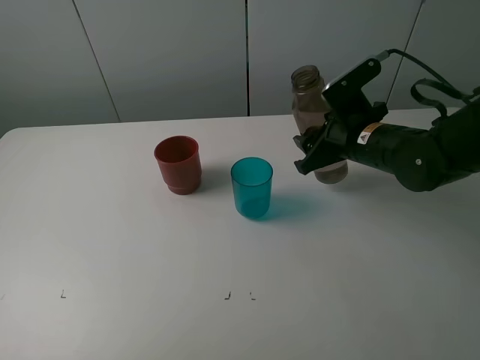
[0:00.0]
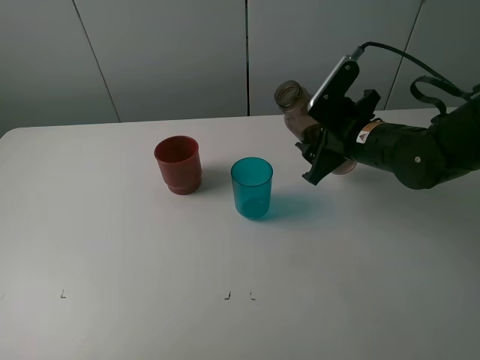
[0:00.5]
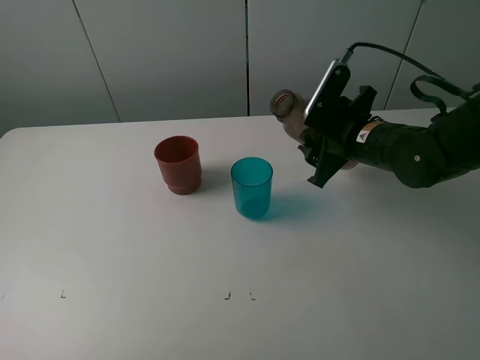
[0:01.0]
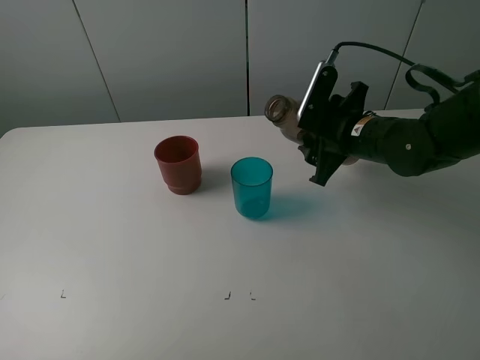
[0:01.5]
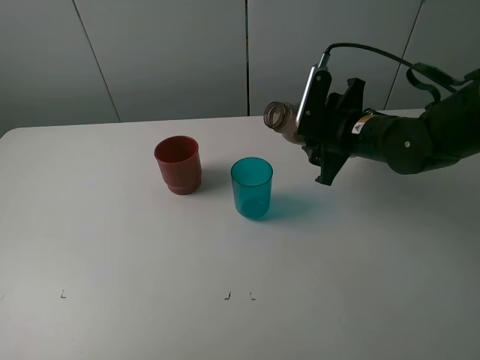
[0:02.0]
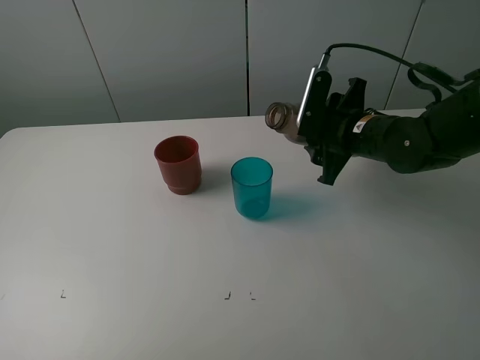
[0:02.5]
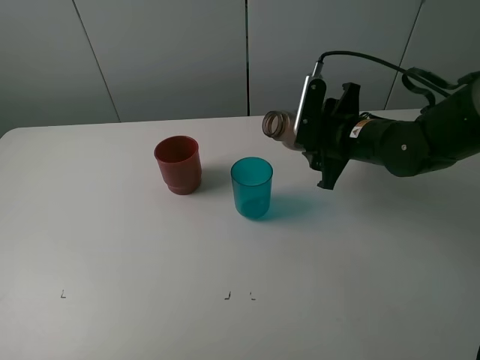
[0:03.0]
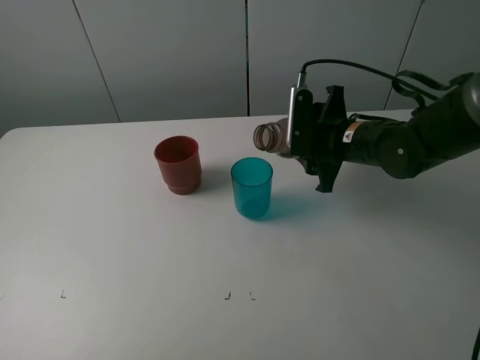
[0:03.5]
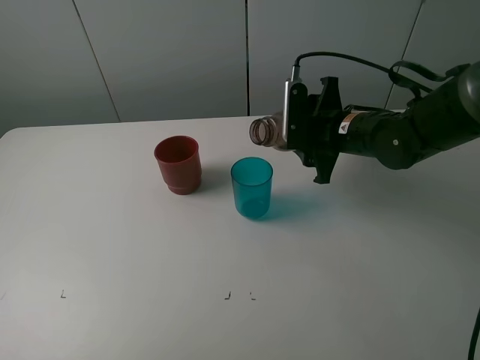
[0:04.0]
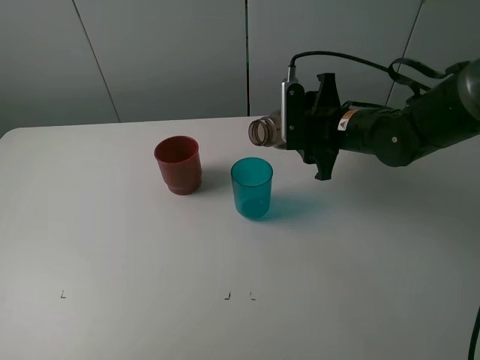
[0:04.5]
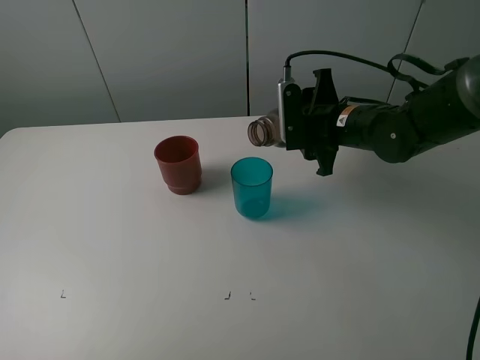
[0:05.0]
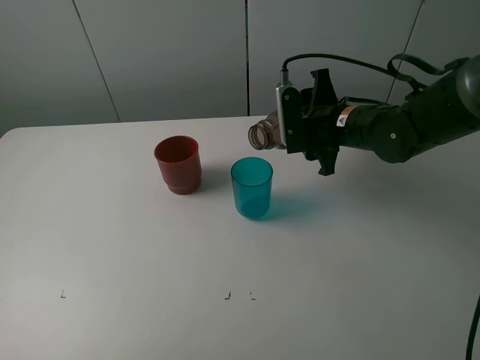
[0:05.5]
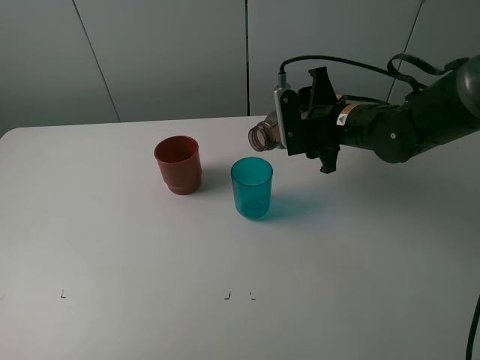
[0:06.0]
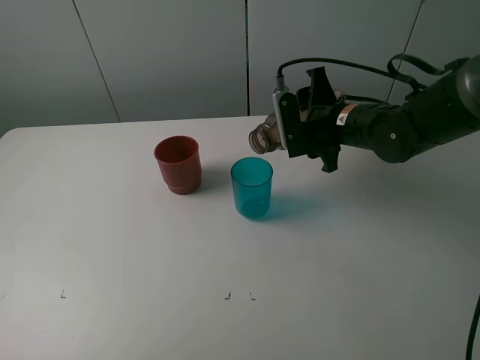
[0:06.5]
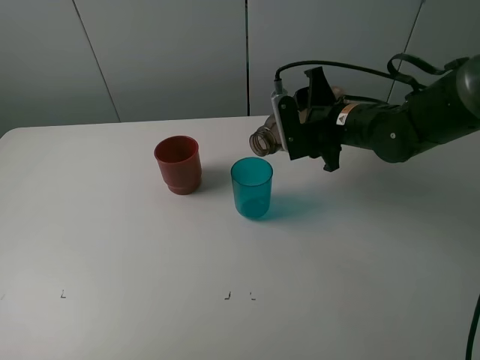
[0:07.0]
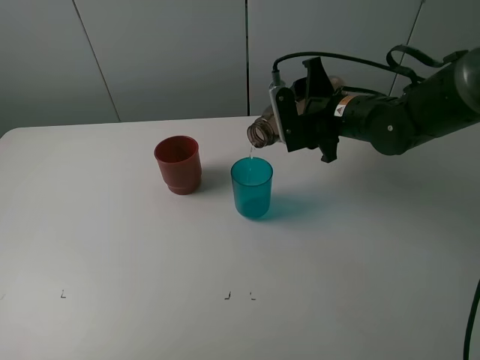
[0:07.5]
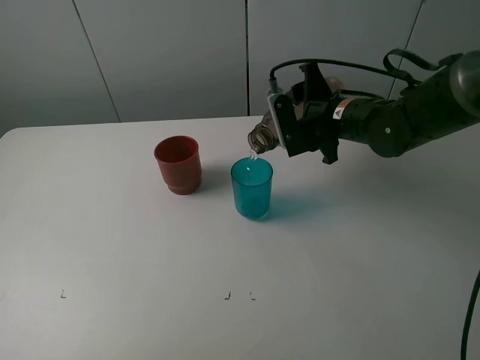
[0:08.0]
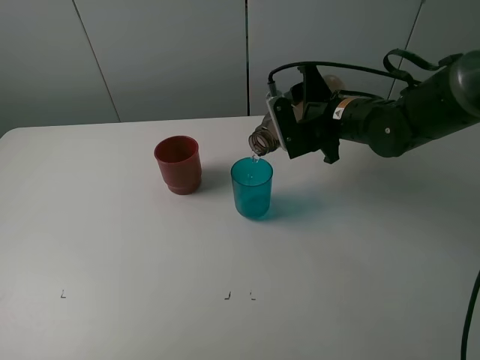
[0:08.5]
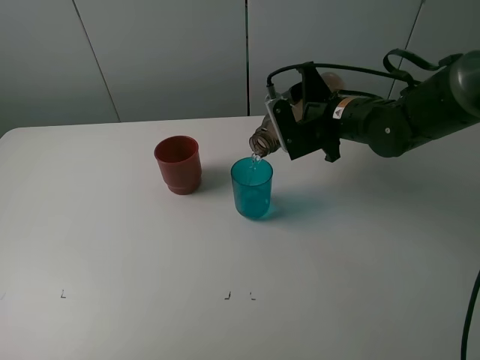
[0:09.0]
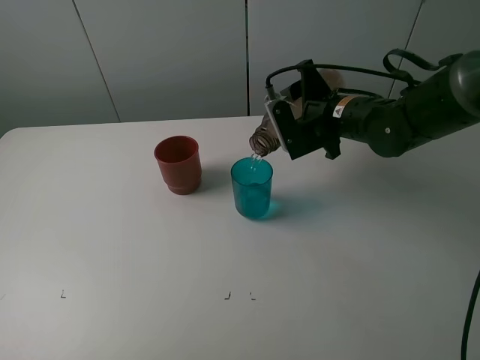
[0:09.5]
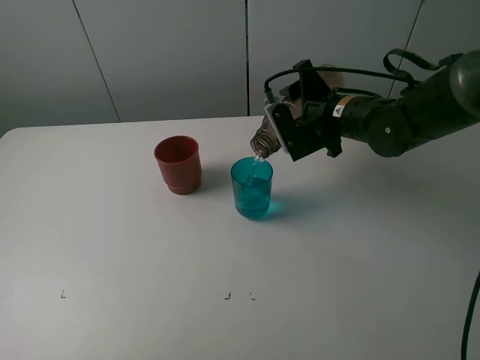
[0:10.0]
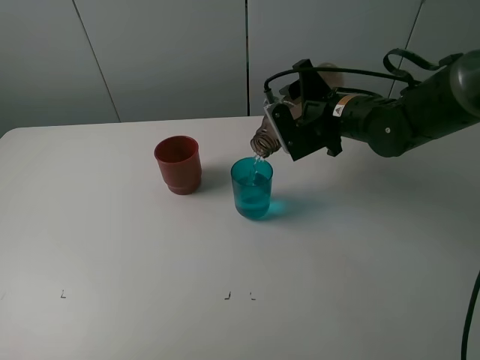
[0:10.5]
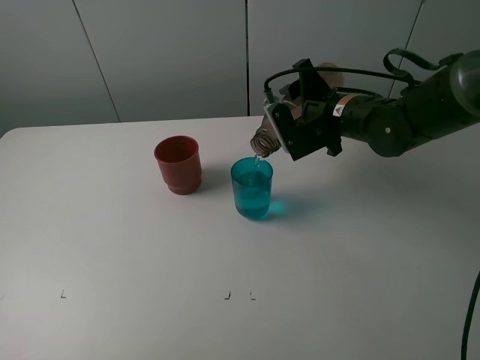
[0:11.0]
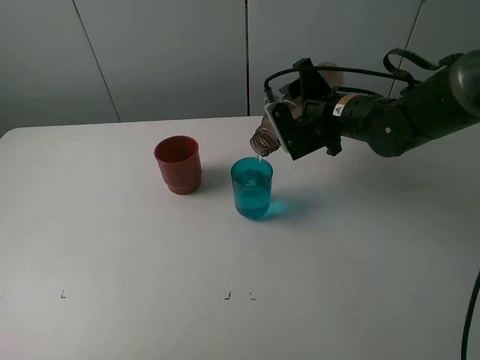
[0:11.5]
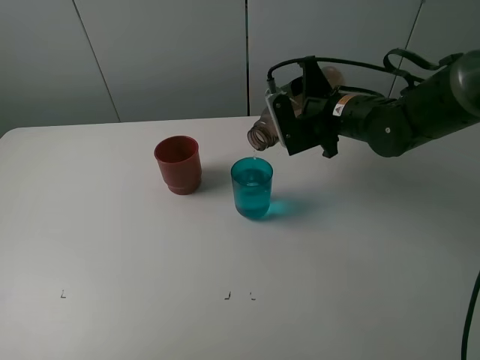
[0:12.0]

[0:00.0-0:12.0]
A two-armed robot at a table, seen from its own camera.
Task of the whole recording: pick up the bottle and pour water into the cup, then pick up the cup containing water and pour it into another cup.
Step, 0:00.0 to 0:12.0: Pour water from brown bottle to blue cup with the right gripper.
0:02.0 to 0:04.0: The grippers move only a little.
0:04.0 to 0:06.0: There are only small adjustments of the grippers.
0:06.0 to 0:12.0: The grippers stay close to where they were, moving slightly.

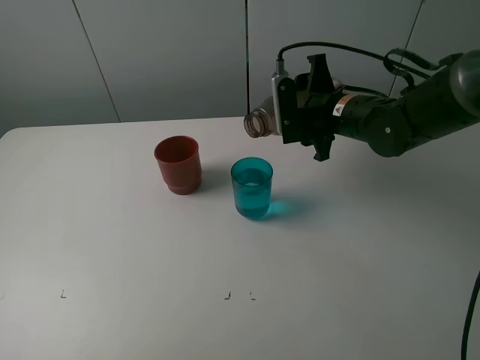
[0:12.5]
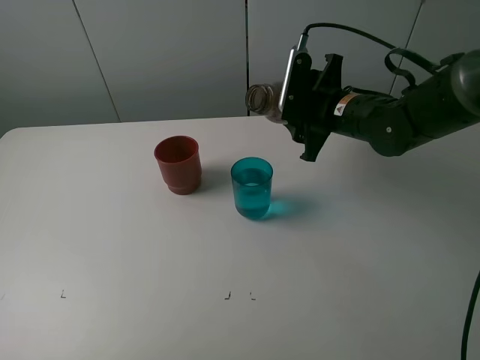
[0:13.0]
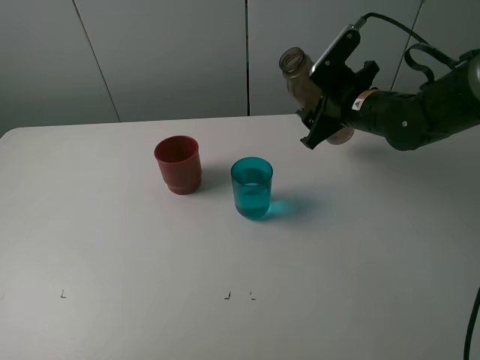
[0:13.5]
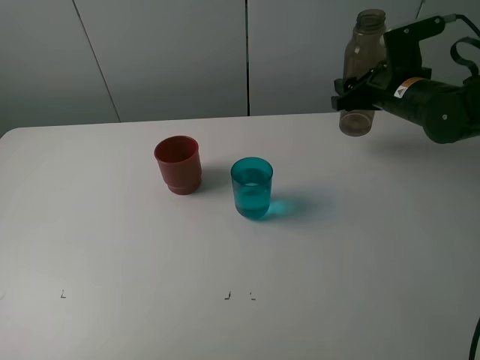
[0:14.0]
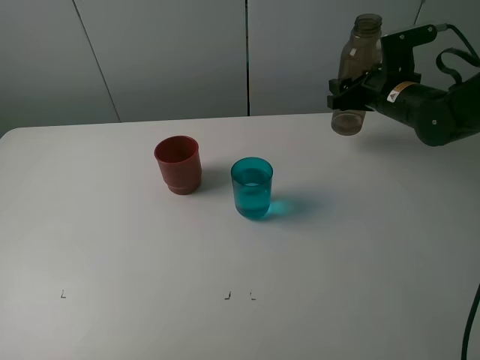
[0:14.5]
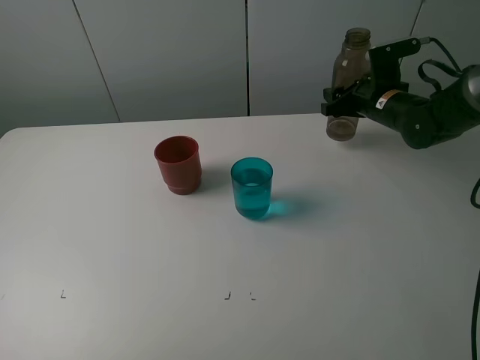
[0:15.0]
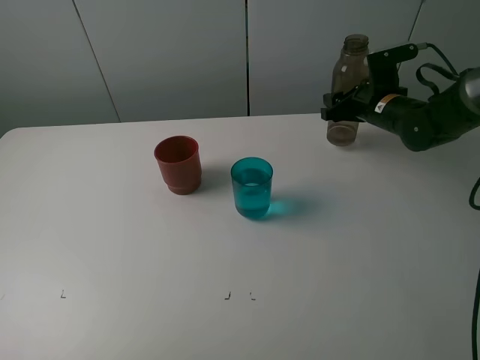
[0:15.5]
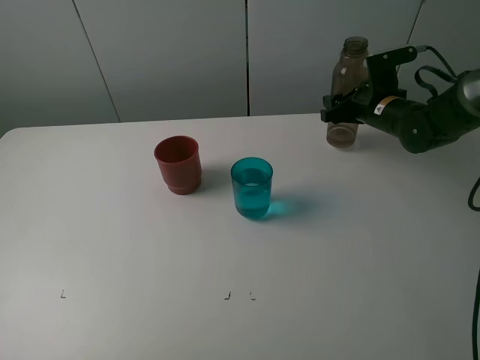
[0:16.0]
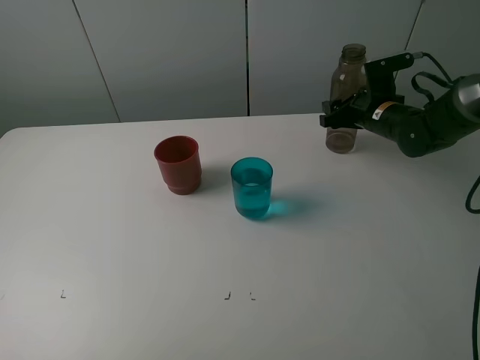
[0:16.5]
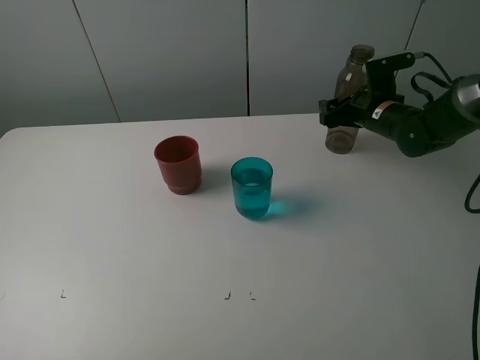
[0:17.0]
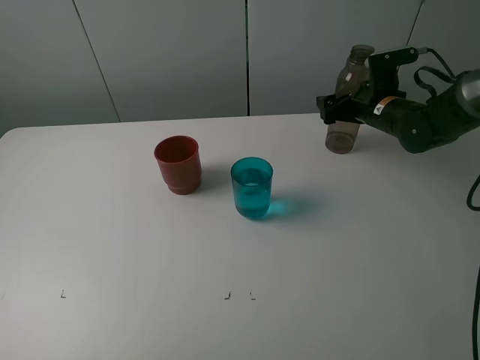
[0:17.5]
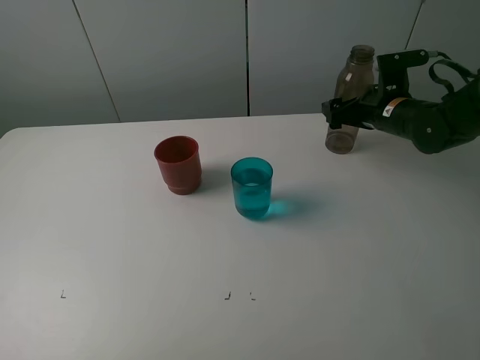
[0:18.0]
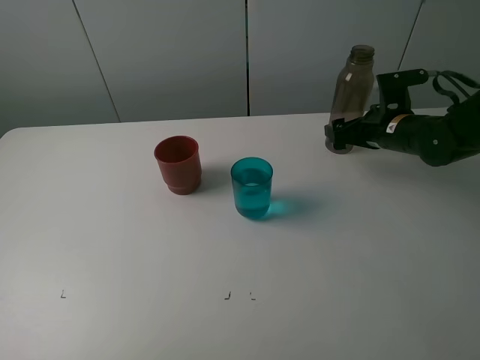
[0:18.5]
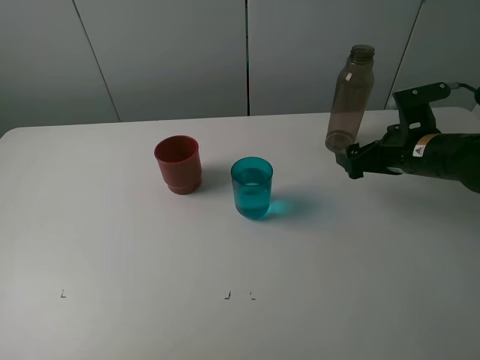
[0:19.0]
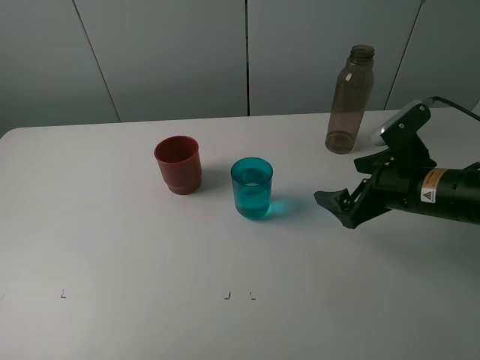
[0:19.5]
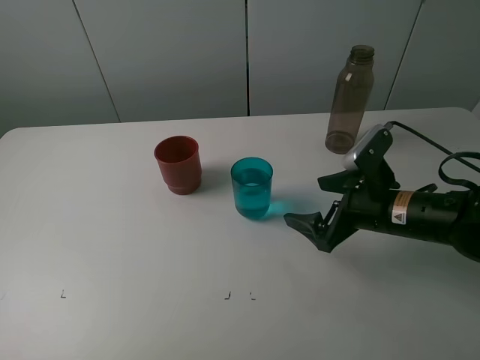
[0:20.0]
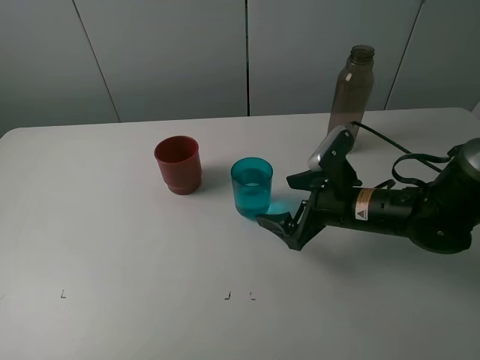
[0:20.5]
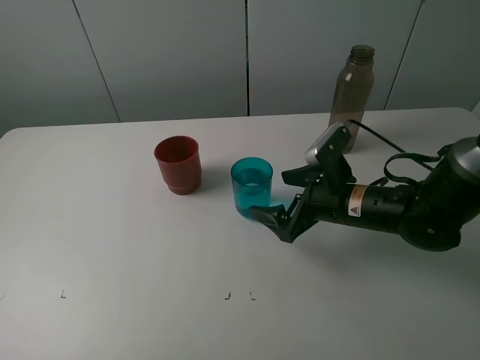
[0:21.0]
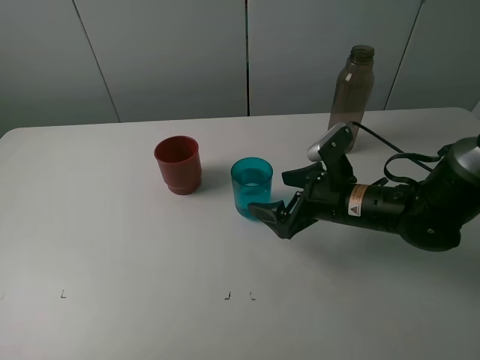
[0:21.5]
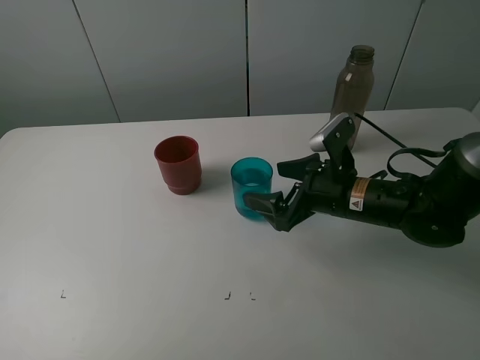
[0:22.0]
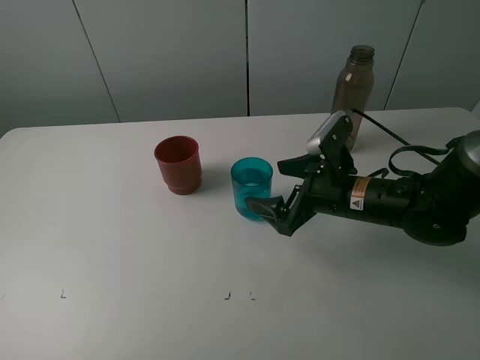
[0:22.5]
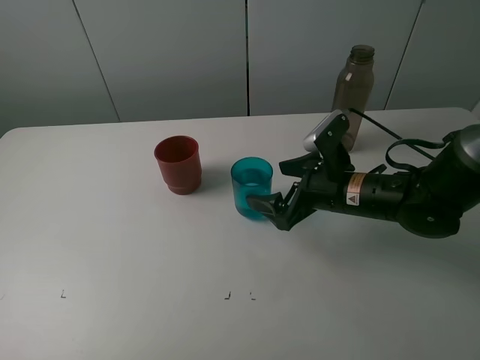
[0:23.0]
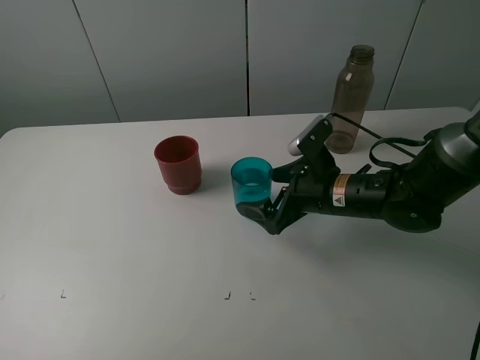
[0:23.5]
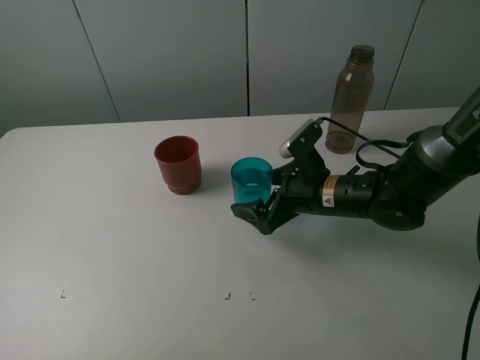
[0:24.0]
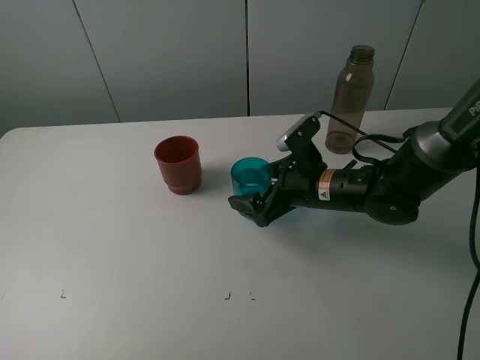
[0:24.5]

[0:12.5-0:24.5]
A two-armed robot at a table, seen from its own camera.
Task of the whole recording: pick up the bottle and pour water into the cup, then pick up the cup containing water and pour it into another cup.
Step, 0:12.5 to 0:17.5: Place the brown bottle with the right gripper.
0:12.5 to 0:14.5: The right gripper is displaced to the right and forward by roughly 10 cm.
0:14.5 to 0:16.5: The grippers move only a little.
0:16.5 to 0:18.5: The right gripper opens.
0:18.5 to 0:20.5: The right gripper moves backward and to the left, roughly 15 cm.
0:20.5 to 0:24.5: There are only small adjustments of the grippers.

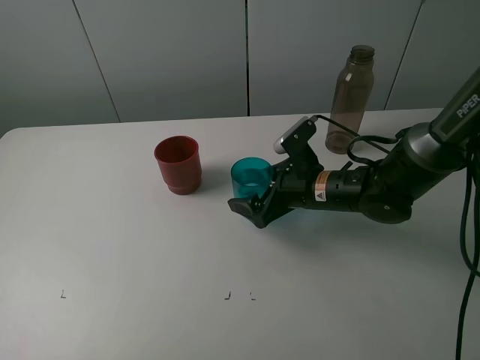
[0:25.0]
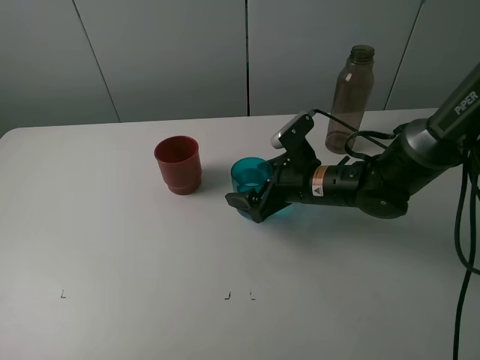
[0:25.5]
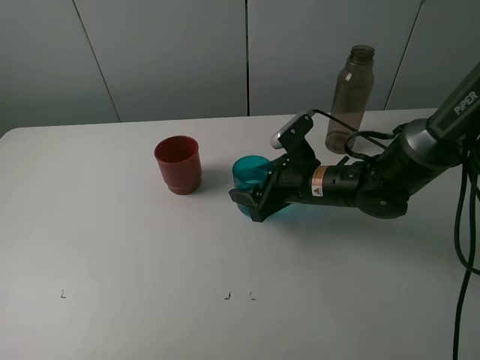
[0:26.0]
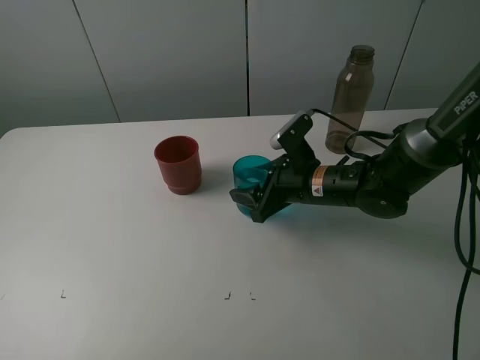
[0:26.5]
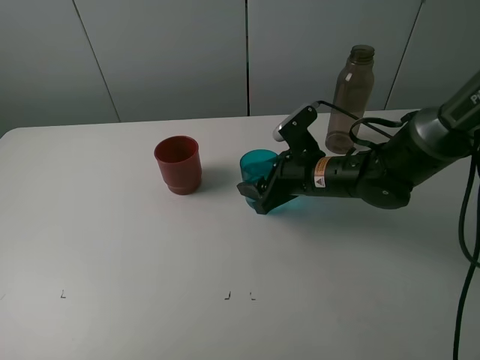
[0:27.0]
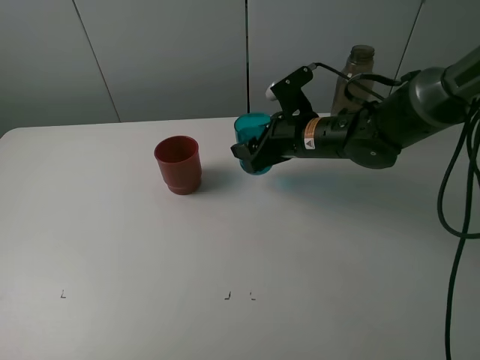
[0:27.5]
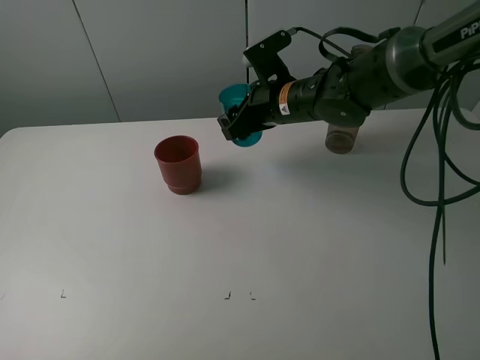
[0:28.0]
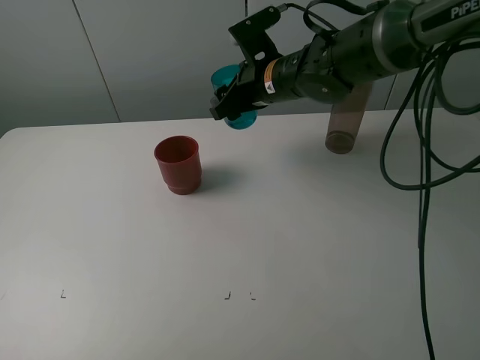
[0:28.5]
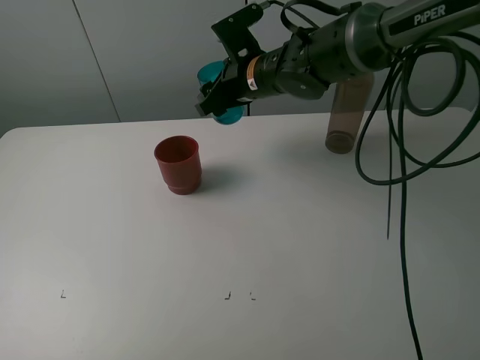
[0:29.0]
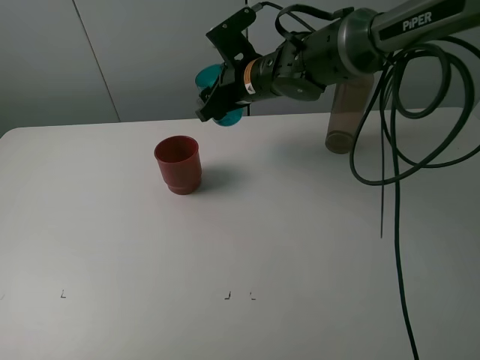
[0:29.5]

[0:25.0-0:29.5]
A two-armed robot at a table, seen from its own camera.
Task of the whole recording: pick up the bottle and pour water into the cup, then pick up the cup containing water and pour it into another cup.
0:25.0 to 0:27.0: The right gripper closes its fingers.
0:27.0 to 0:29.5: The right gripper heads forward, upward and to the left, covering roughly 15 cm.
